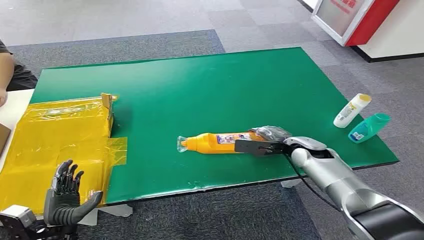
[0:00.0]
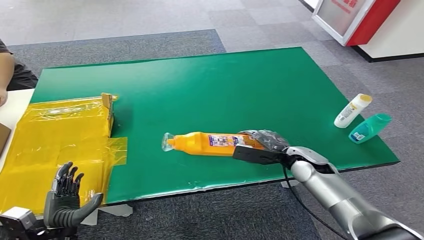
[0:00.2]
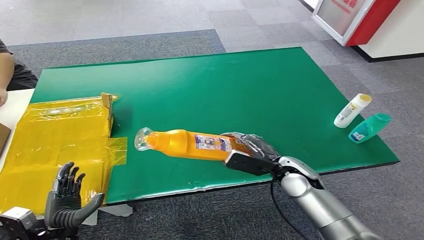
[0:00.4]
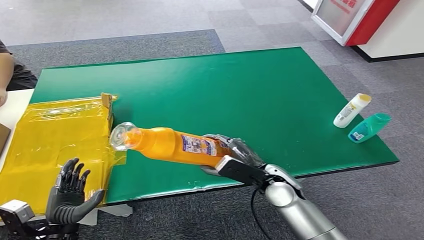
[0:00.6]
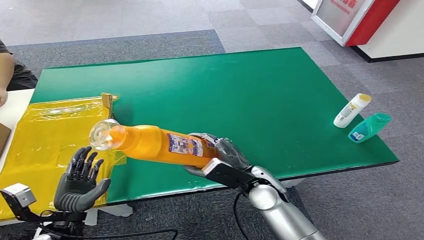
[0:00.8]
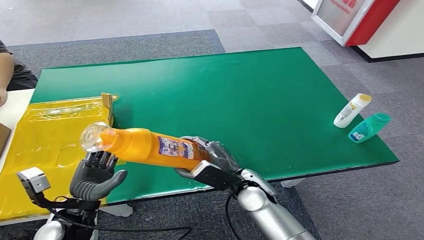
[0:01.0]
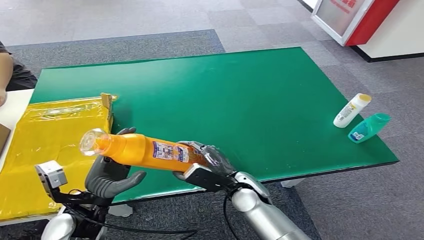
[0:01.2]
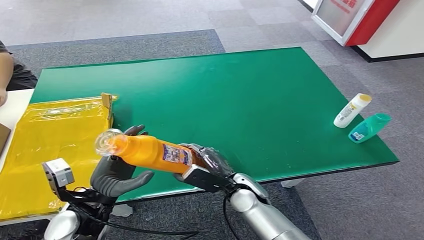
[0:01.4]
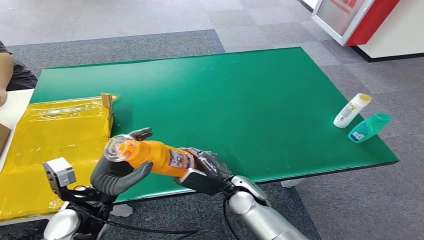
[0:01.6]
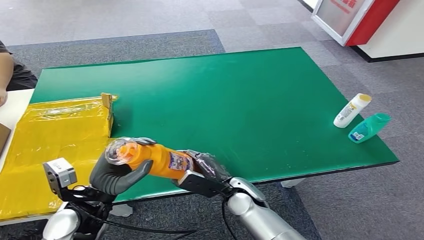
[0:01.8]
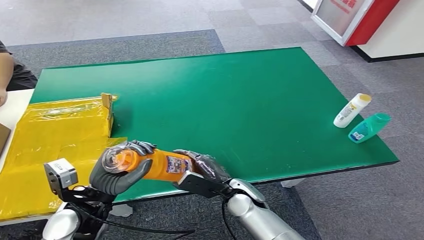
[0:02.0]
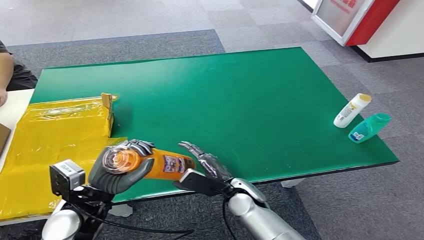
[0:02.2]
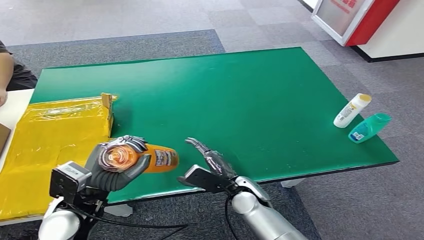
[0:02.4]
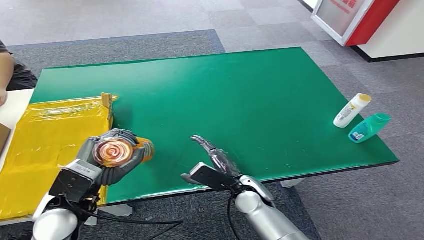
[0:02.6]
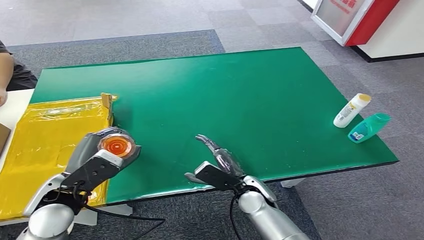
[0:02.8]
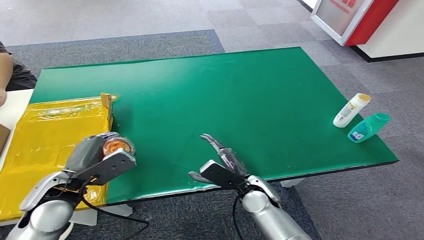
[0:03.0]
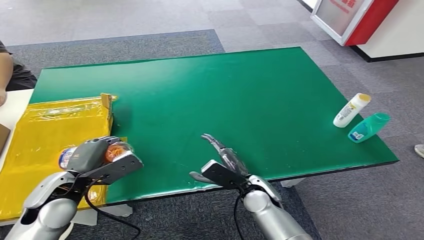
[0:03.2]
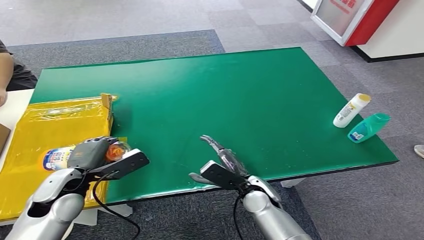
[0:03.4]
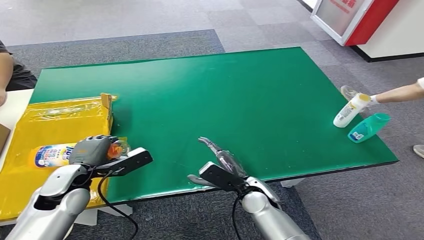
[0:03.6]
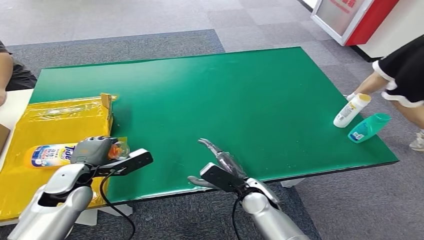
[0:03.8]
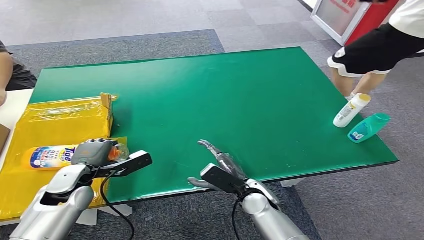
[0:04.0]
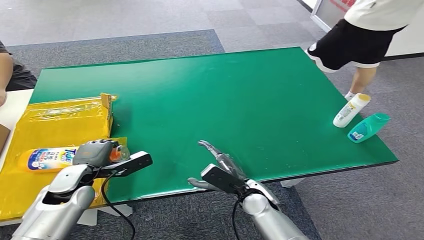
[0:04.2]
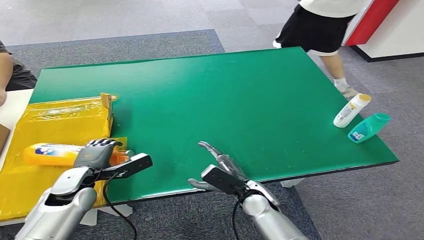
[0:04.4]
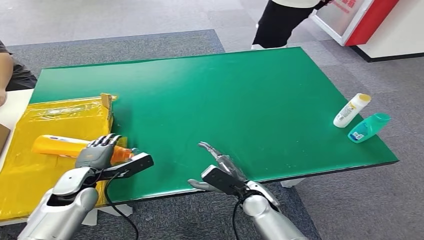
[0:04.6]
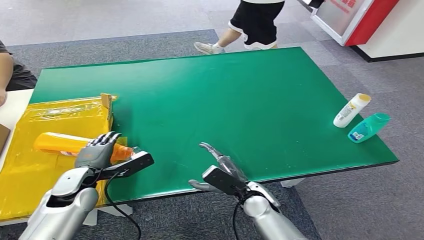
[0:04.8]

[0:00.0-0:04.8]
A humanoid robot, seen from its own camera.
Step, 0:00.0 to 0:01.8: Pick up the bottle from the table.
Step, 0:02.0 to 0:04.8: Turn the bottle to the front side.
0:01.6 to 0:03.2: The left hand goes about 5 cm to the left.
0:03.2 to 0:04.8: The left hand moves downward, some 5 cm.

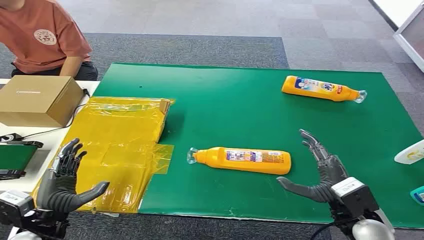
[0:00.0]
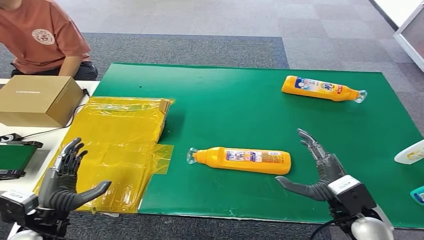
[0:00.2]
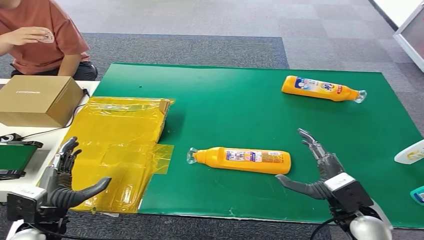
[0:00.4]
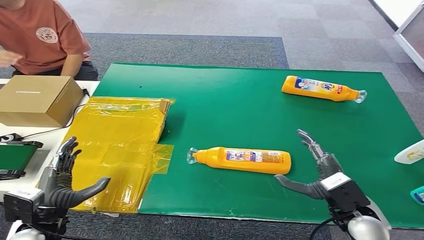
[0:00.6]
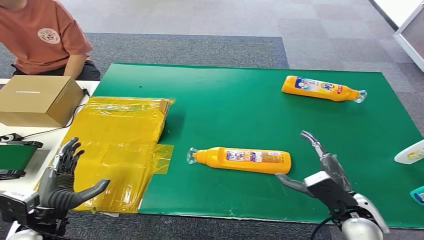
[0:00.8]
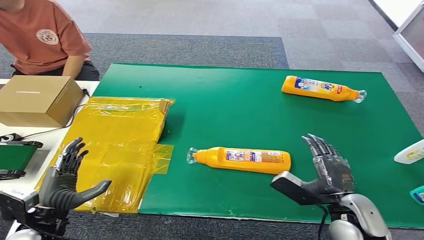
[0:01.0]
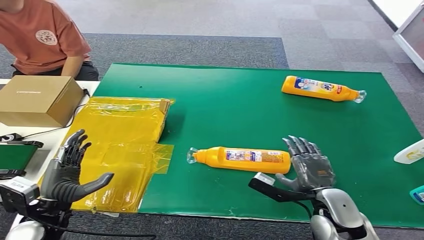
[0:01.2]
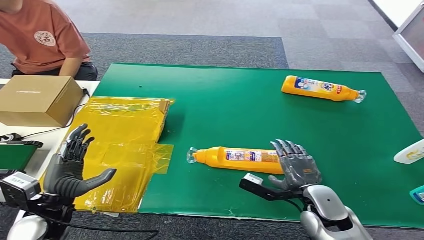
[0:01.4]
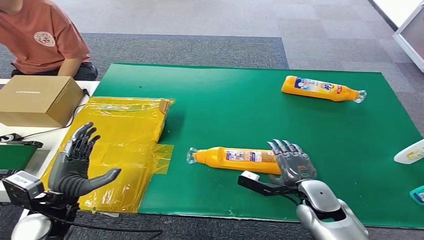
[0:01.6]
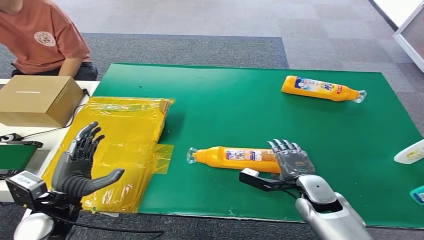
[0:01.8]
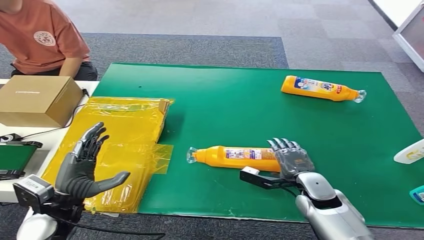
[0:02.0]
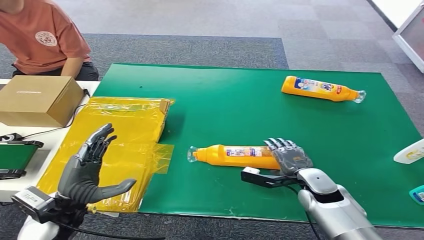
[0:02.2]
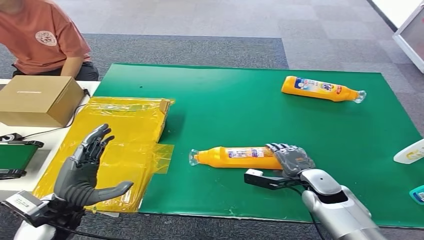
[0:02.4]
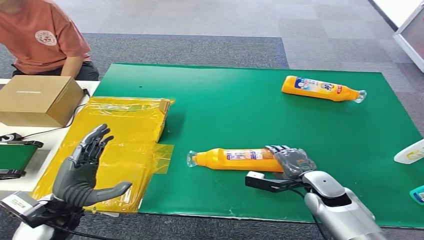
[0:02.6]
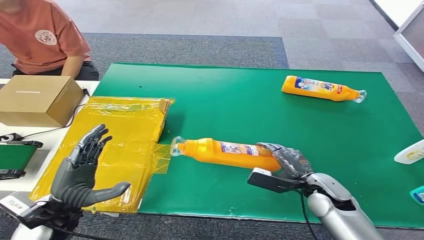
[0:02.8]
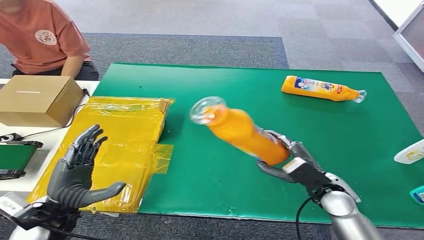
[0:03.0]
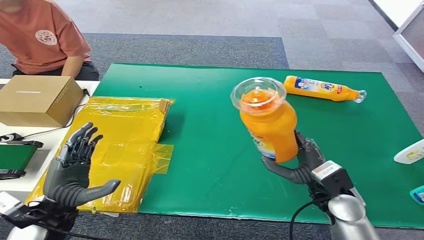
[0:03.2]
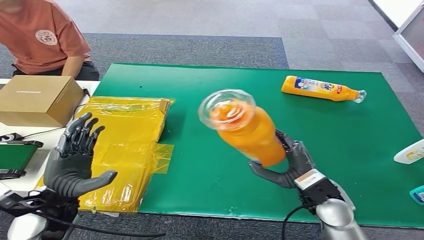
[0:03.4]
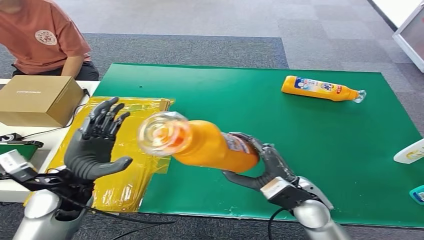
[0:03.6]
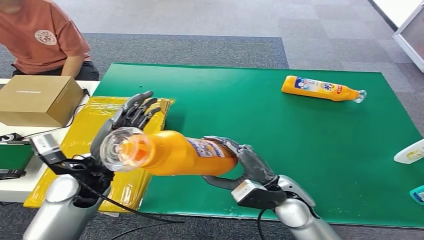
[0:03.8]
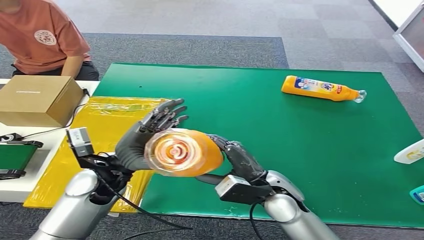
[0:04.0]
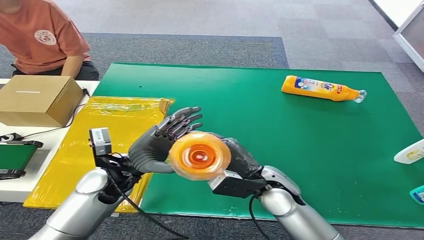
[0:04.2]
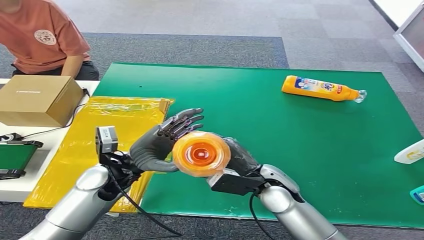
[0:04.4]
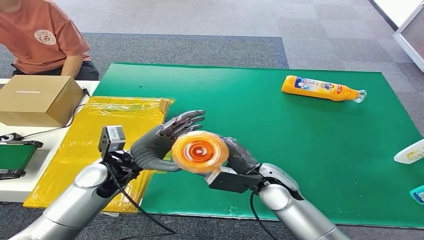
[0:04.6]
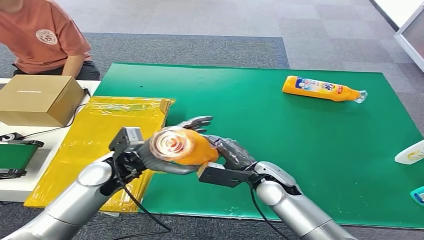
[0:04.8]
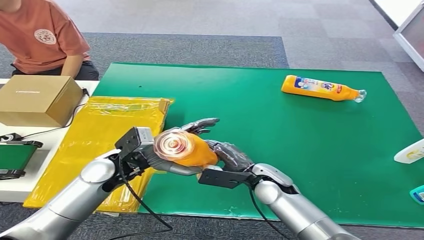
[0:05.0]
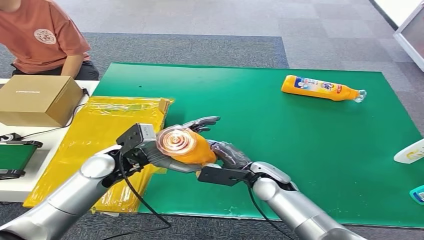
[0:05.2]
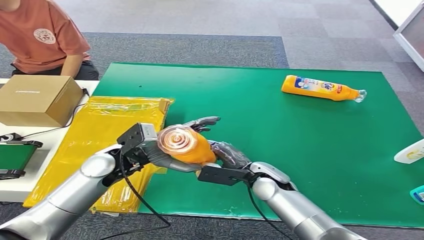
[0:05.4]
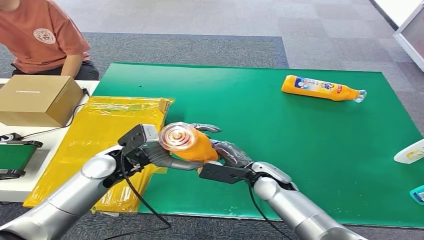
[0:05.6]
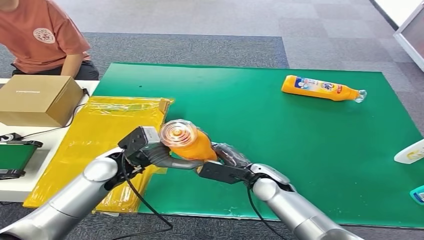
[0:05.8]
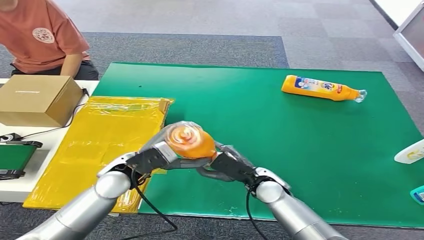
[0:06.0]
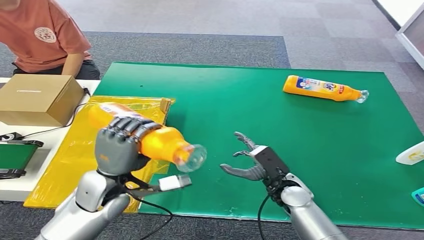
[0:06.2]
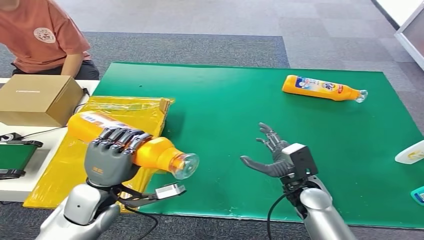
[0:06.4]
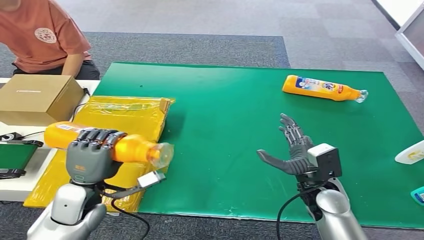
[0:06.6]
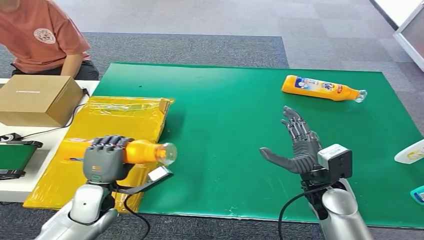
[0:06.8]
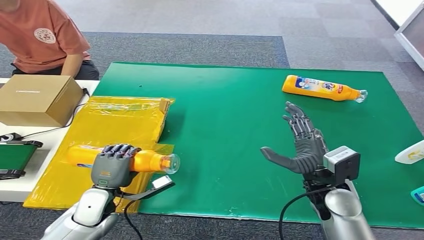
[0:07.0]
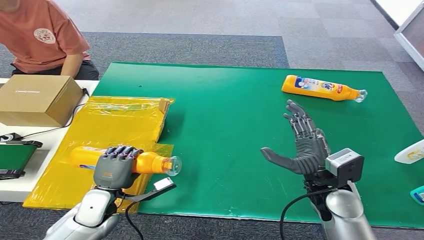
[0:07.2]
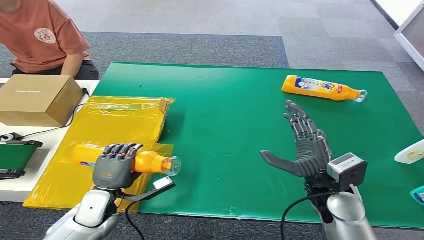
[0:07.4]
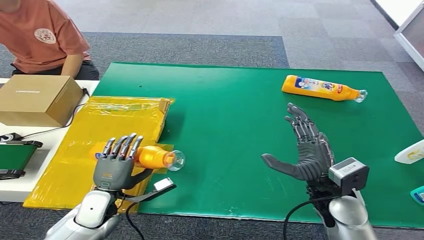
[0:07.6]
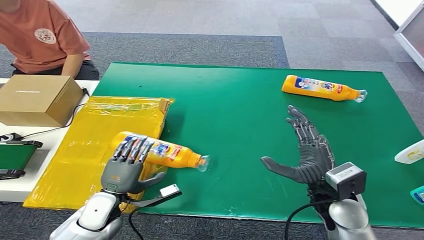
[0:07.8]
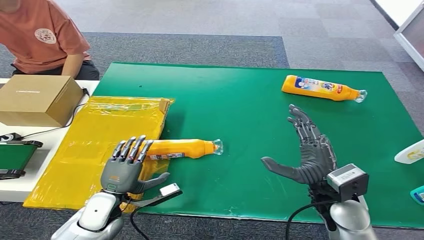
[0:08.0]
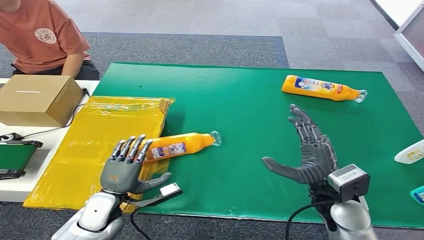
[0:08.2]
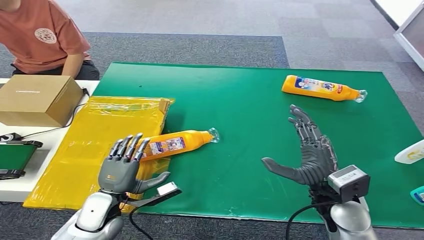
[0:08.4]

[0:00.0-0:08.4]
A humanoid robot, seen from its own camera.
Step, 0:00.0 to 0:03.0: Pick up the bottle from the table.
Step, 0:03.2 to 0:08.4: Turn the bottle to the front side.
0:01.4 to 0:02.8: The right hand changes place by approximately 5 cm.
0:04.2 to 0:05.6: The right hand heads downward, covering approximately 5 cm.
0:07.0 to 0:08.4: The hands move only a little.
